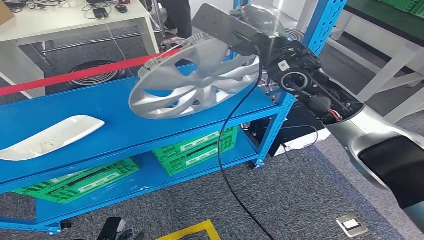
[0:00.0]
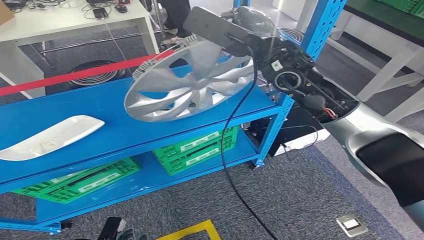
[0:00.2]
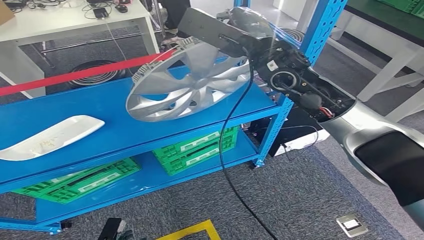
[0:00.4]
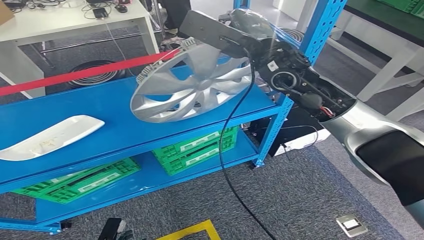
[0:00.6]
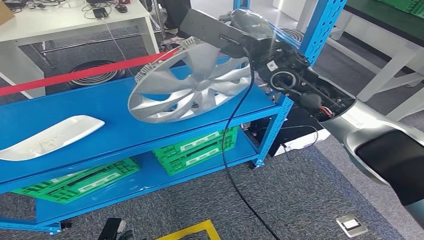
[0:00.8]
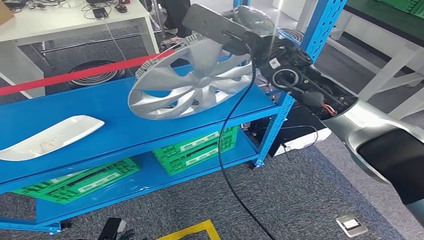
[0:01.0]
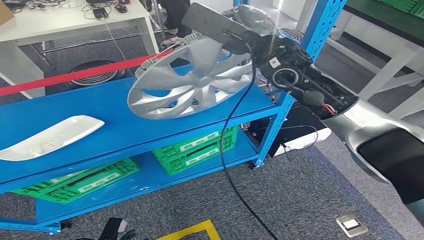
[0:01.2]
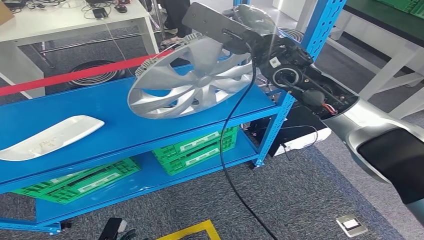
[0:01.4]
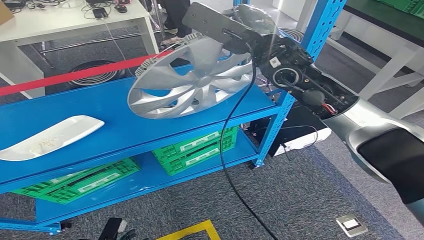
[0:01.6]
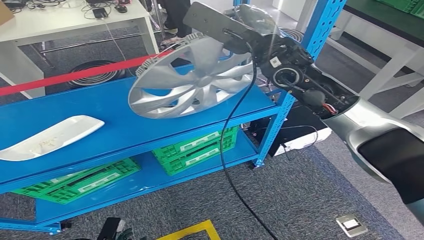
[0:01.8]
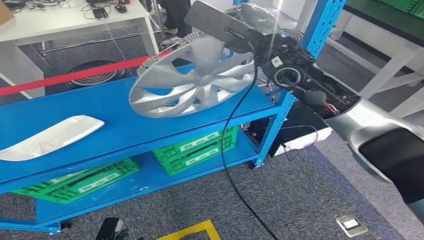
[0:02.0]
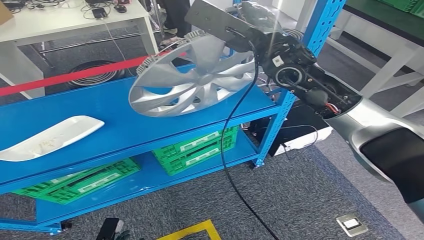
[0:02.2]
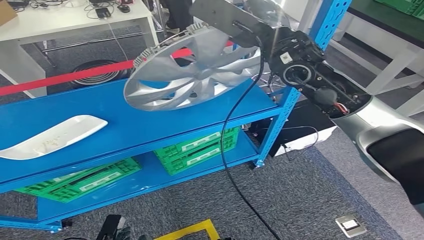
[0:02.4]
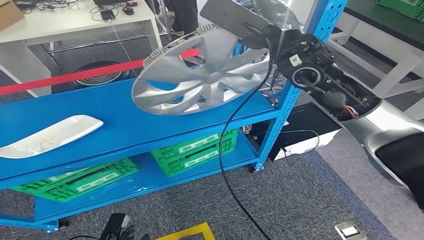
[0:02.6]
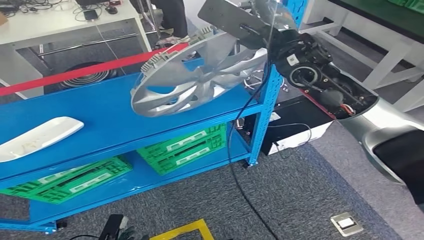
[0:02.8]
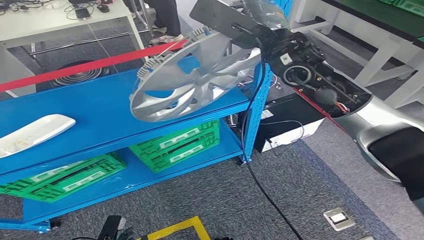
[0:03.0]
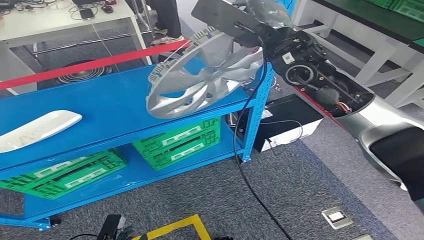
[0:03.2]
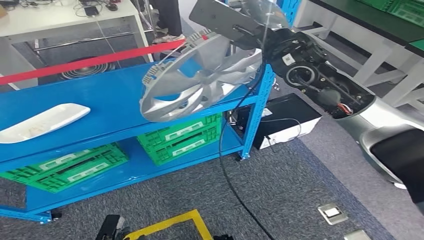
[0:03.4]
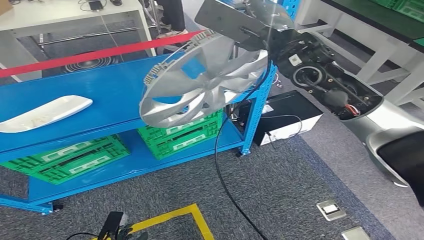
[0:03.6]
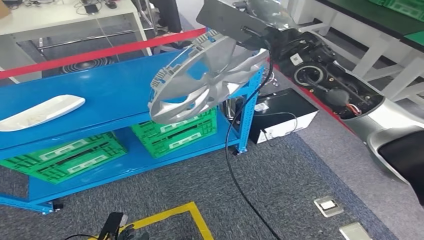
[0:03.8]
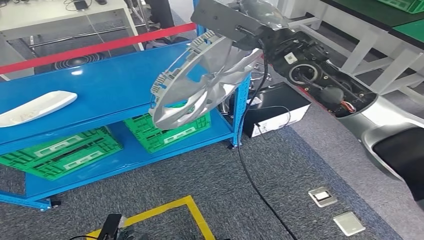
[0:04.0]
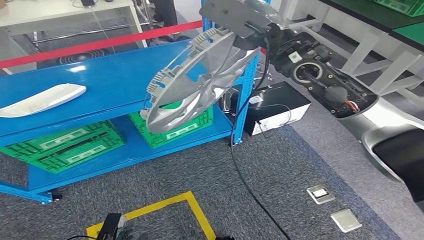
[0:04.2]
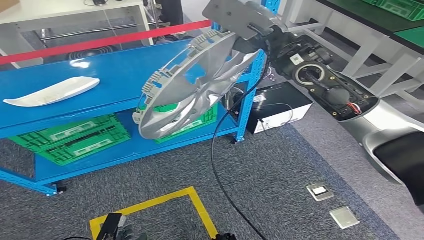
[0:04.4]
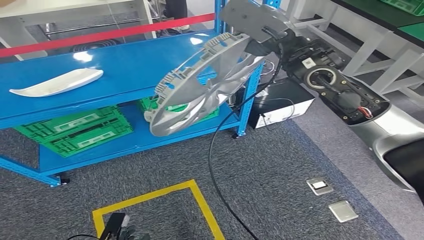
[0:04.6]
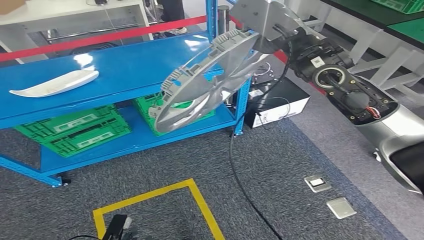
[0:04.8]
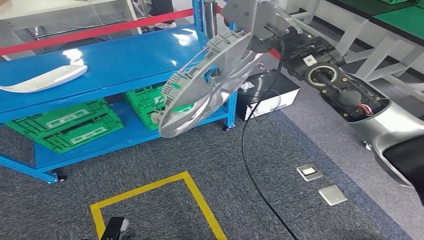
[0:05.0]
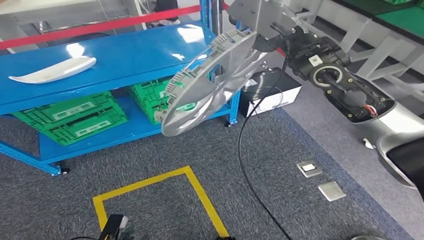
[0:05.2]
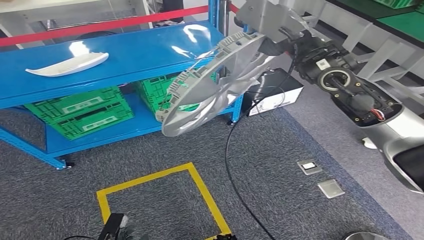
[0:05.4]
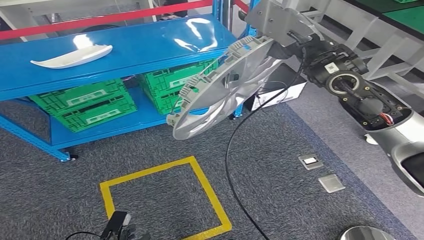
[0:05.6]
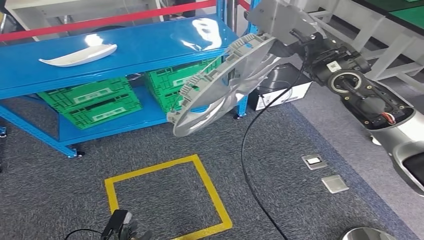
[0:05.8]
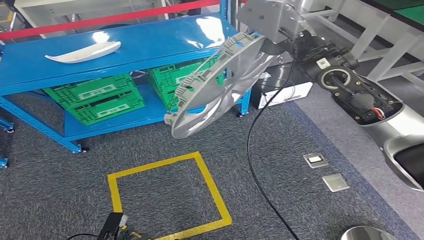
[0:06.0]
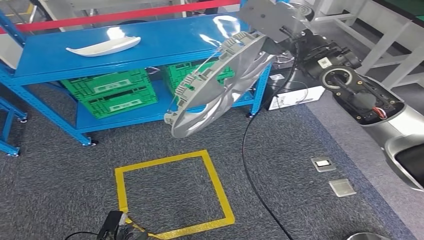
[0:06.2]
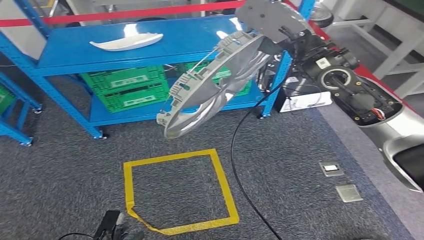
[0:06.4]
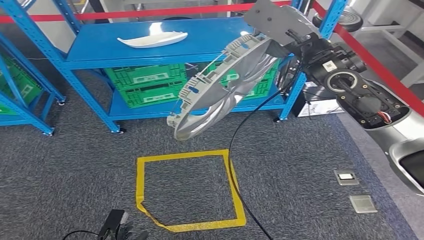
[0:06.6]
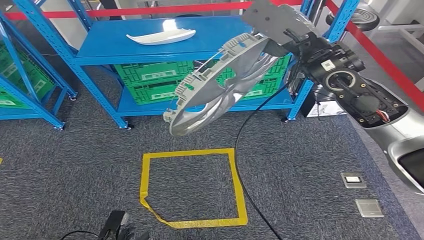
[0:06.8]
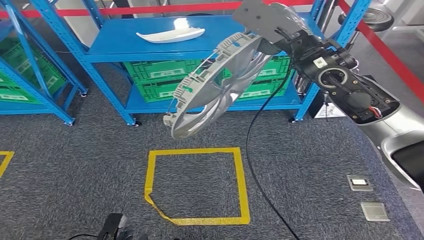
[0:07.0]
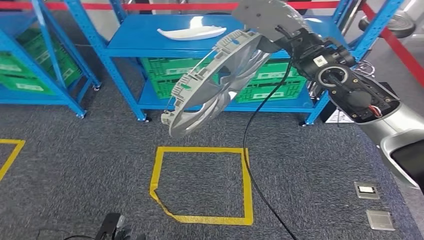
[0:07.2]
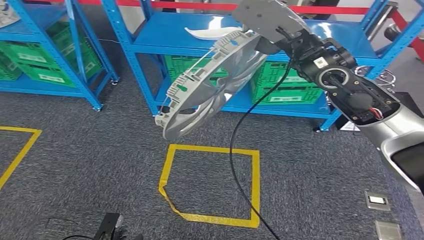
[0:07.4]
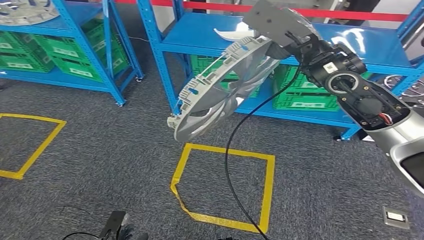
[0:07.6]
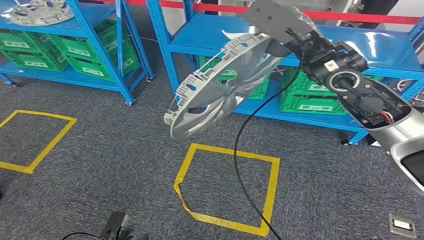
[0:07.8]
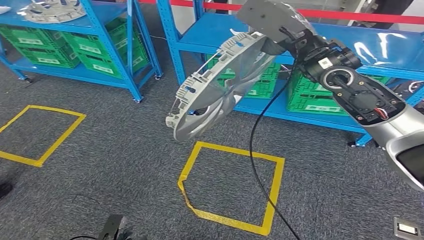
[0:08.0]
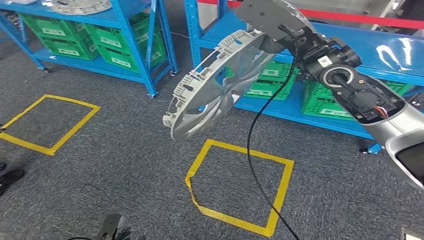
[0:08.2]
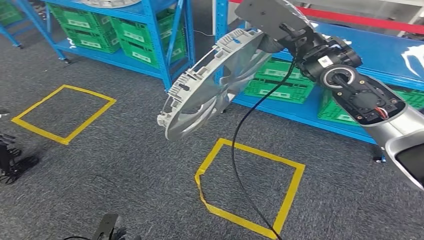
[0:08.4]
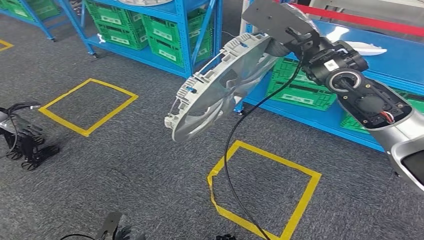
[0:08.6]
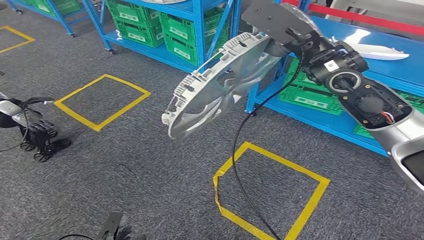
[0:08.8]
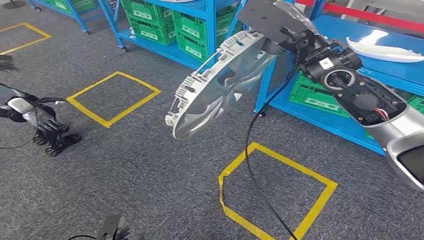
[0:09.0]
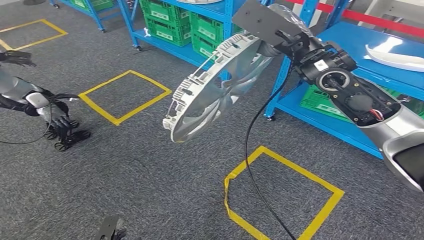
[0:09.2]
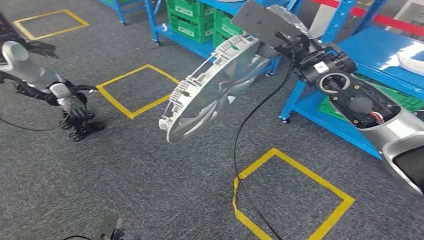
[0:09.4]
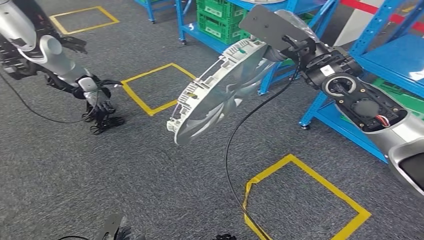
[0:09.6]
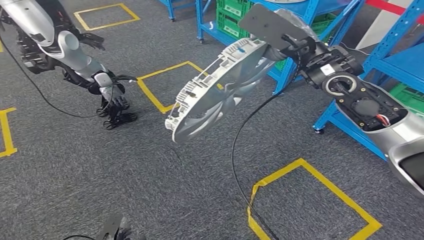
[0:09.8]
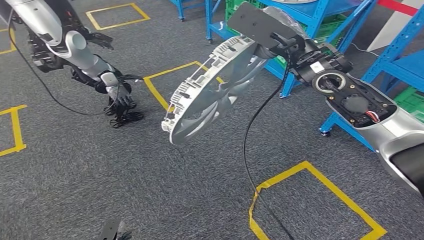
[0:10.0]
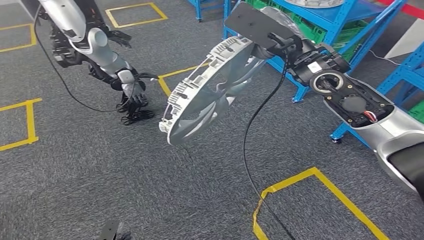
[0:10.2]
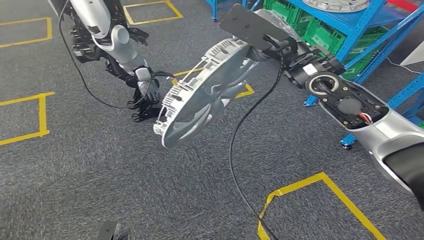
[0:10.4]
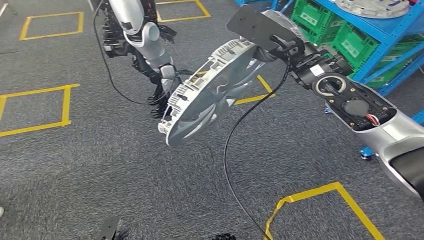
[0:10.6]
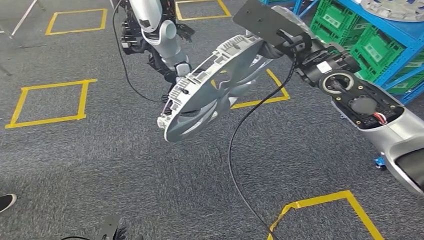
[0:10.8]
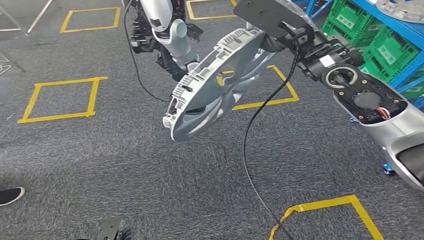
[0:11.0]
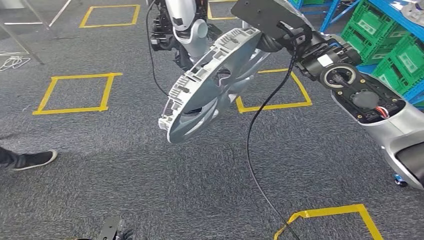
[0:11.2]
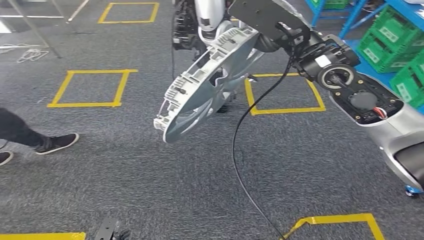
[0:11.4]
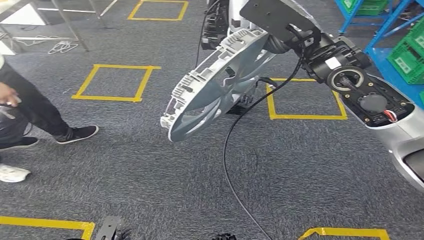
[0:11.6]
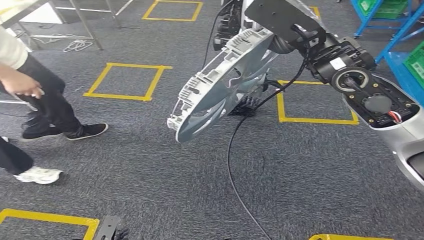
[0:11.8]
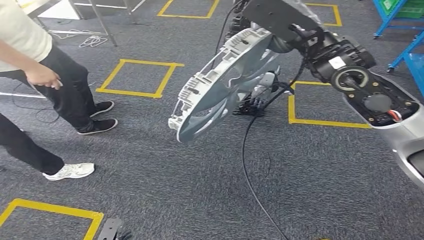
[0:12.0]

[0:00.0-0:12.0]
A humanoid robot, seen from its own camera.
0:00.0 to 0:01.6: The hands make only small movements.

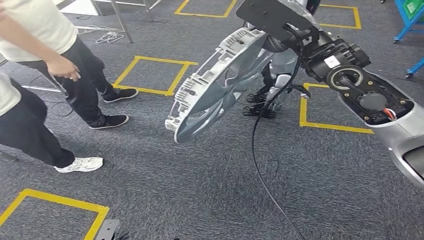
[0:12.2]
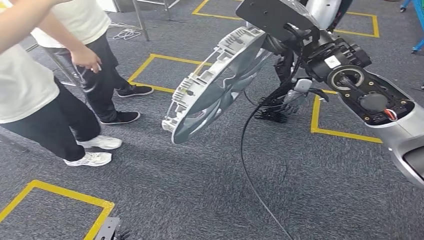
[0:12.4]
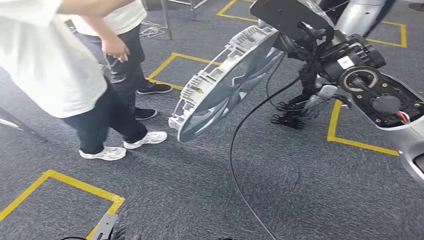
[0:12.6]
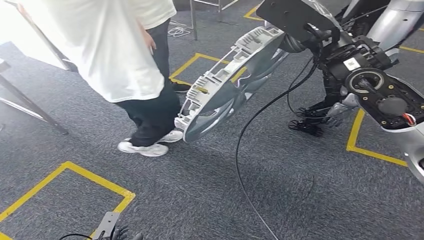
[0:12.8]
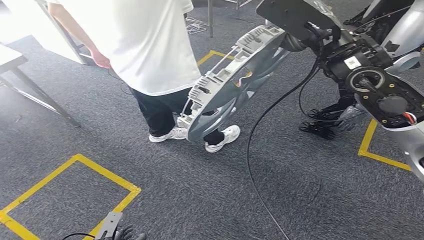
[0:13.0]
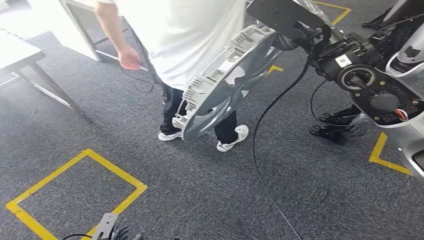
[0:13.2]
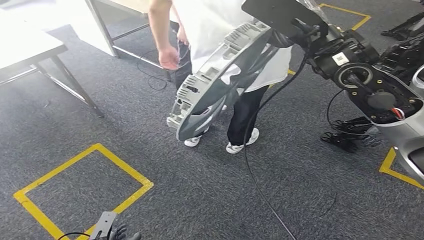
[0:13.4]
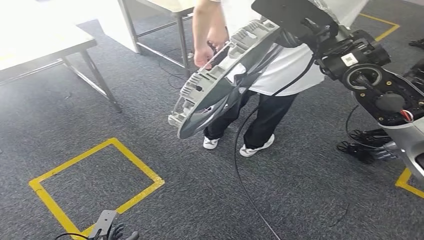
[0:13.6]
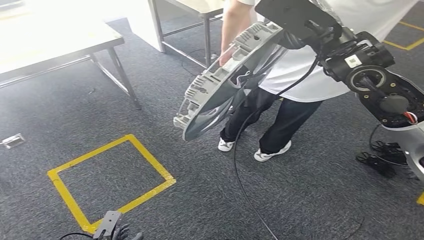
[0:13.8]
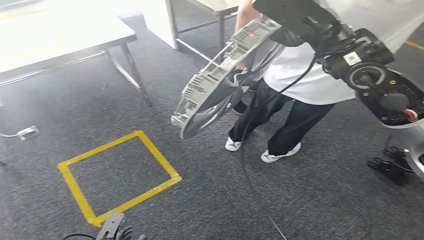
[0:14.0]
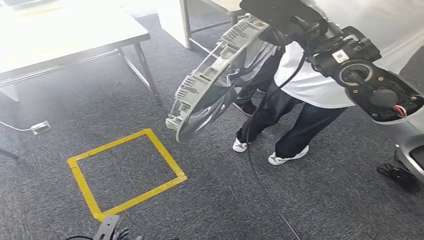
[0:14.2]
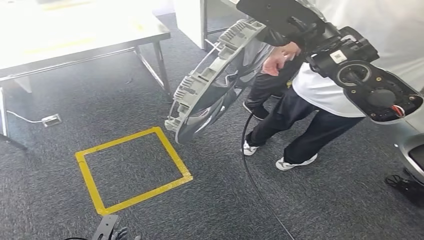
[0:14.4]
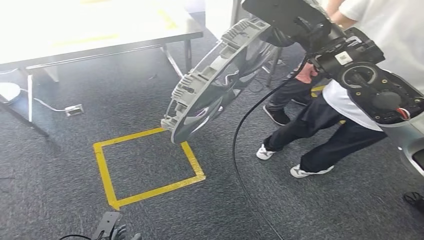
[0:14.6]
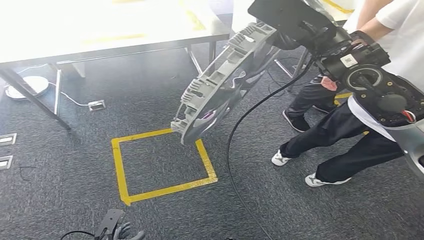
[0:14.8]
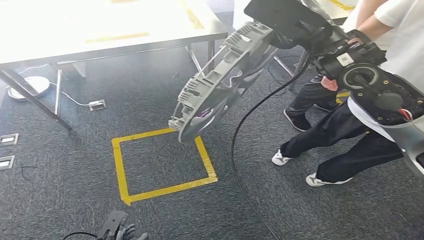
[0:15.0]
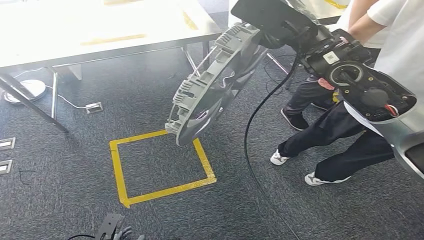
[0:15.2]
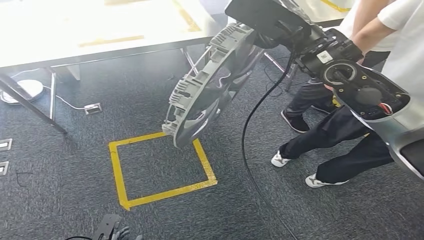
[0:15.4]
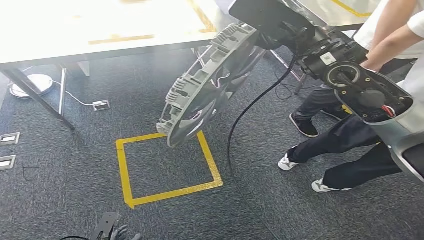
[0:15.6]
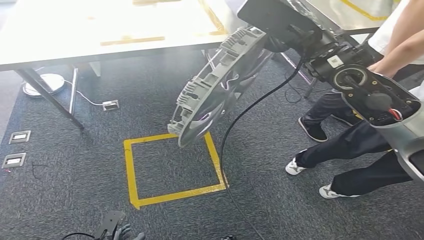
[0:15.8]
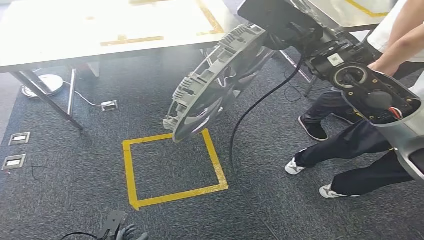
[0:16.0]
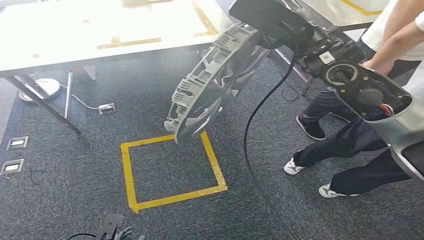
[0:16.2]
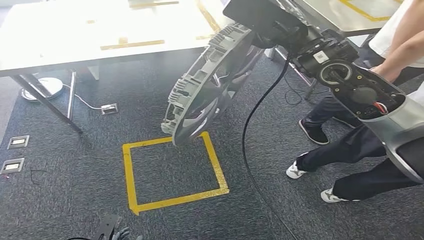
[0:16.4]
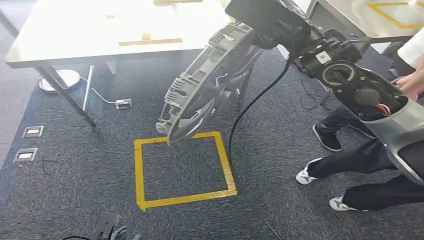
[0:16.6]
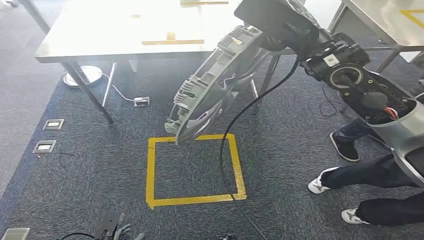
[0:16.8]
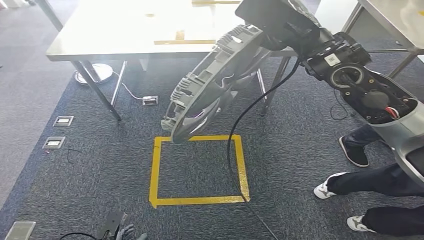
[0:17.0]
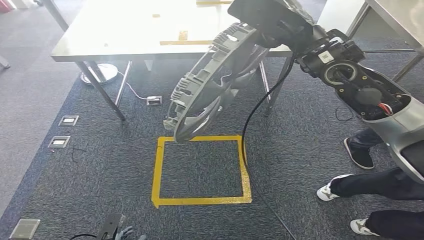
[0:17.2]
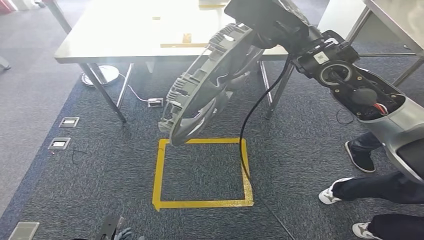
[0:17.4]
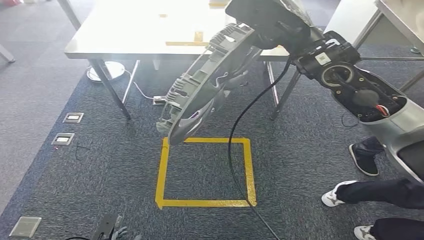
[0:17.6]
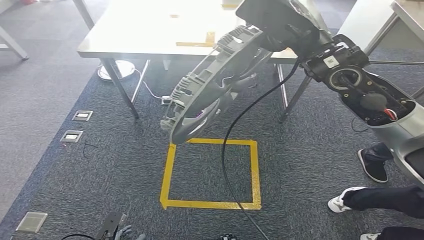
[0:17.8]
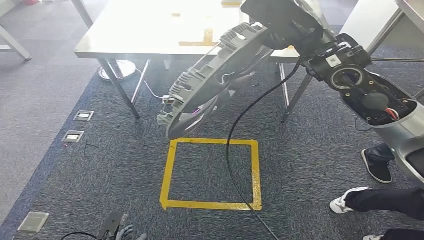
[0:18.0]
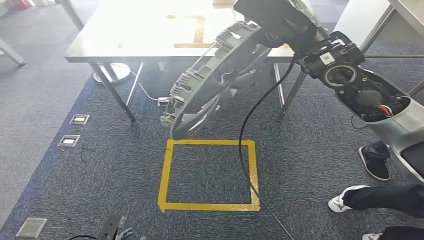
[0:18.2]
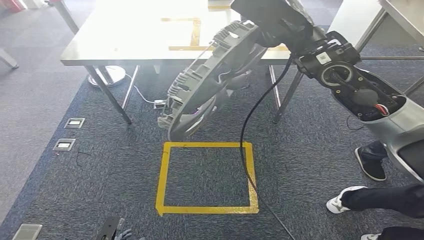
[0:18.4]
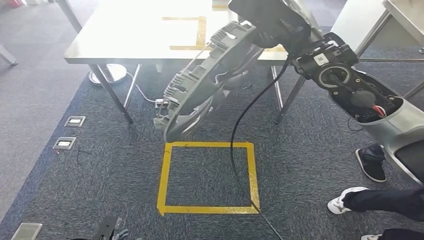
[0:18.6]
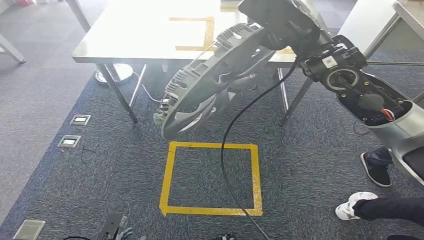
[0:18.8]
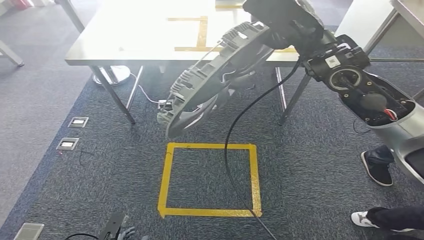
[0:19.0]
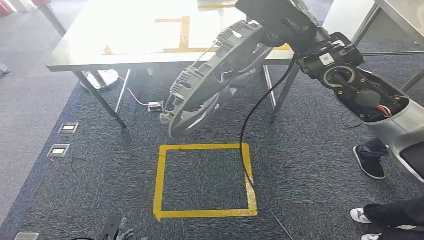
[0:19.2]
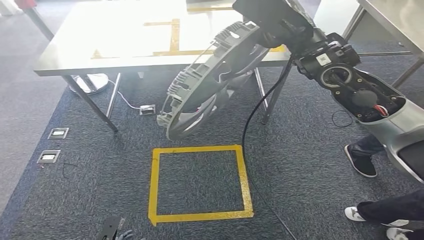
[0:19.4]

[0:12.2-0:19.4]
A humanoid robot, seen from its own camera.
Step, 0:12.2 to 0:16.6: Move the small component to the workbench.
